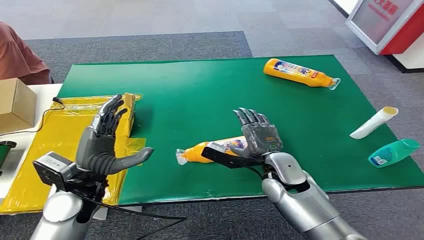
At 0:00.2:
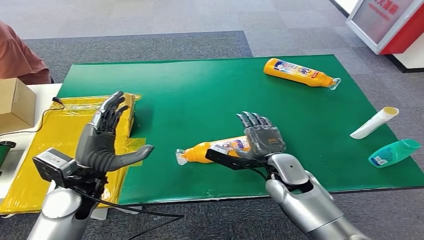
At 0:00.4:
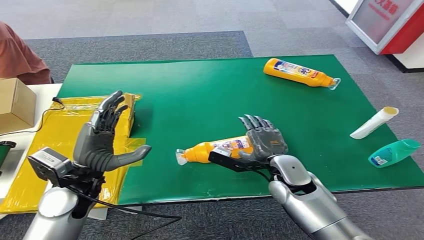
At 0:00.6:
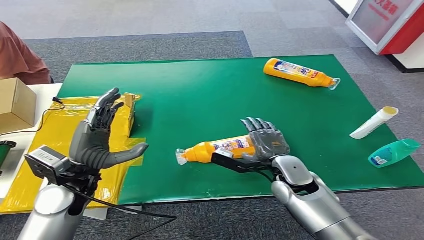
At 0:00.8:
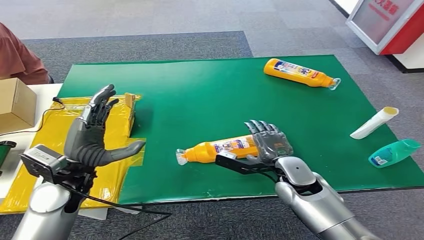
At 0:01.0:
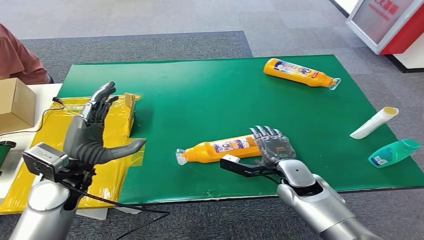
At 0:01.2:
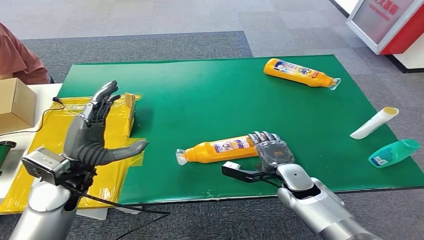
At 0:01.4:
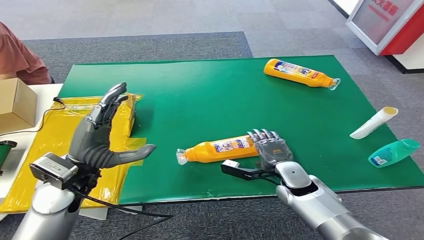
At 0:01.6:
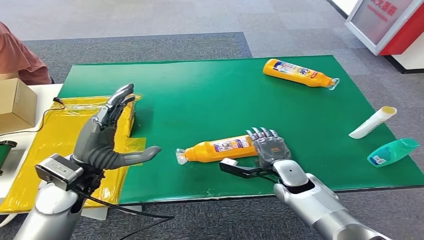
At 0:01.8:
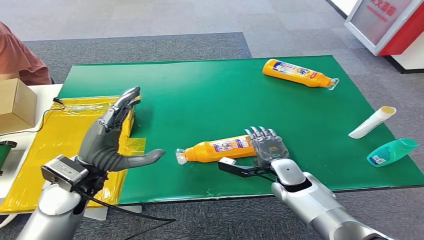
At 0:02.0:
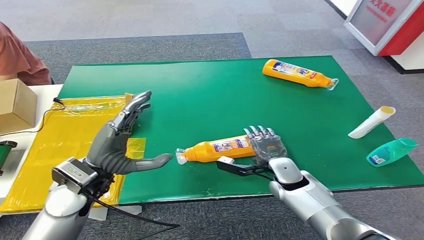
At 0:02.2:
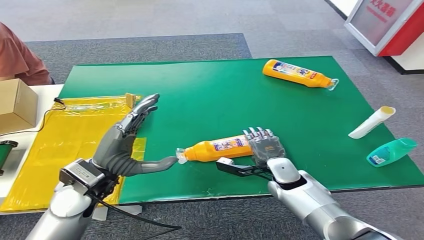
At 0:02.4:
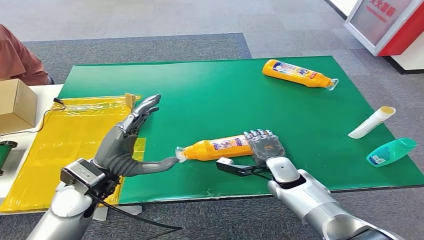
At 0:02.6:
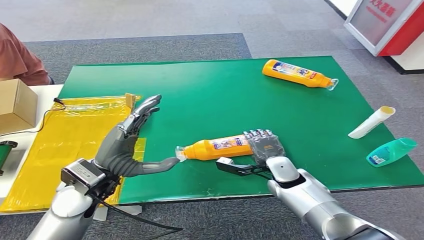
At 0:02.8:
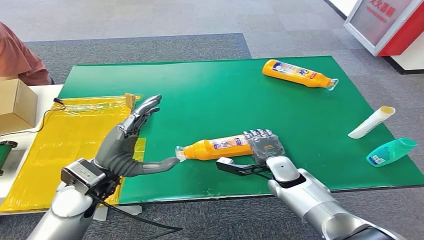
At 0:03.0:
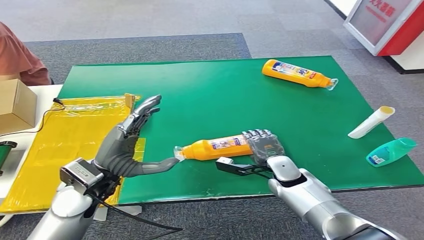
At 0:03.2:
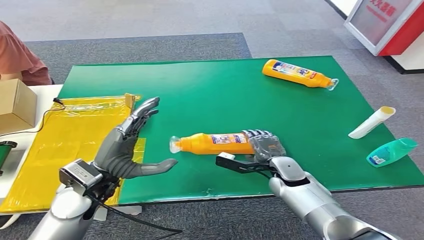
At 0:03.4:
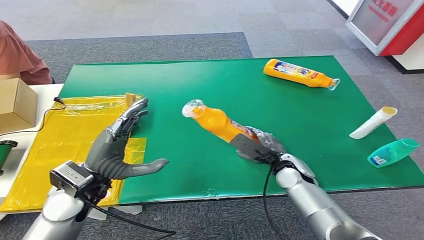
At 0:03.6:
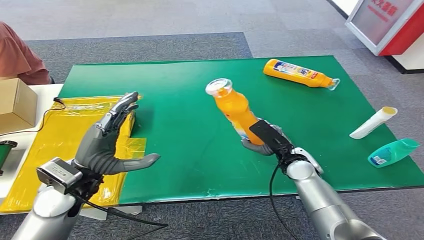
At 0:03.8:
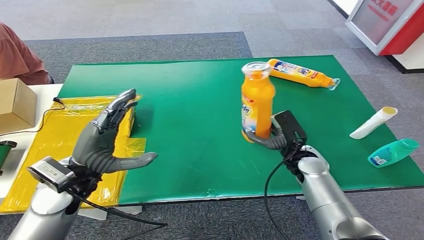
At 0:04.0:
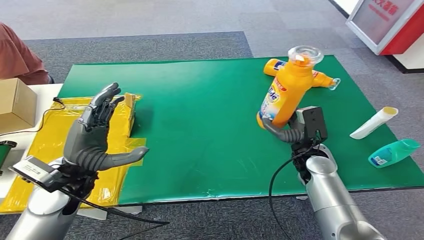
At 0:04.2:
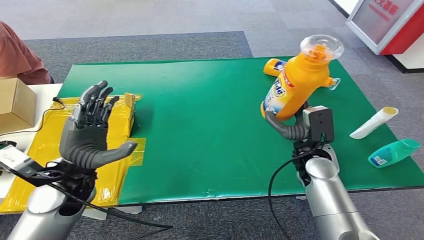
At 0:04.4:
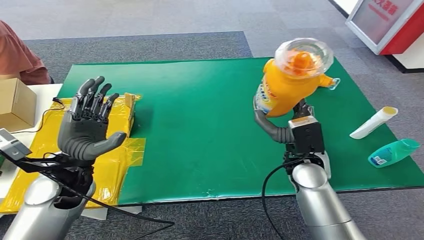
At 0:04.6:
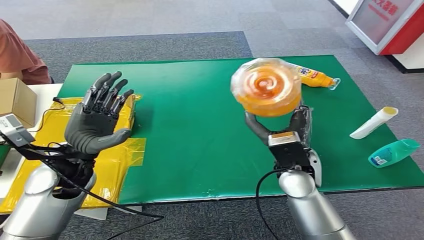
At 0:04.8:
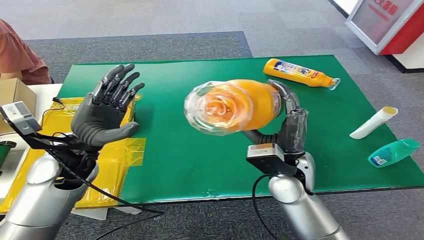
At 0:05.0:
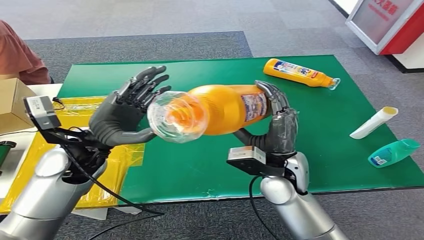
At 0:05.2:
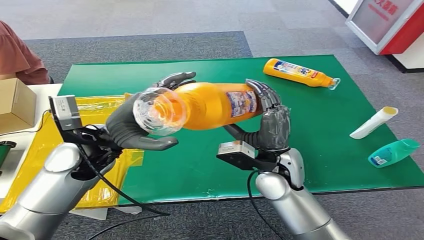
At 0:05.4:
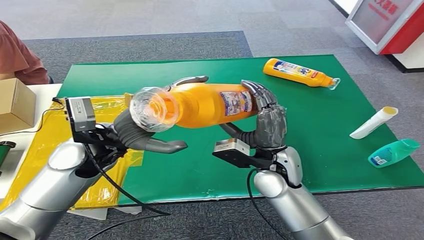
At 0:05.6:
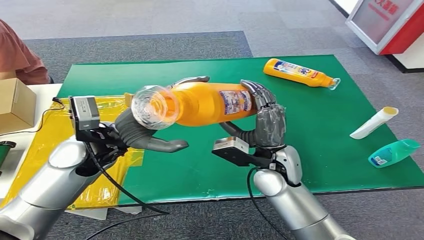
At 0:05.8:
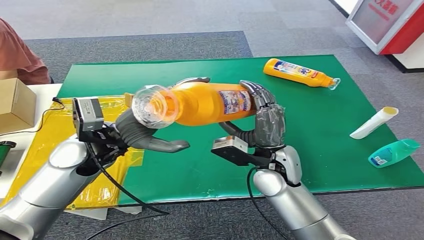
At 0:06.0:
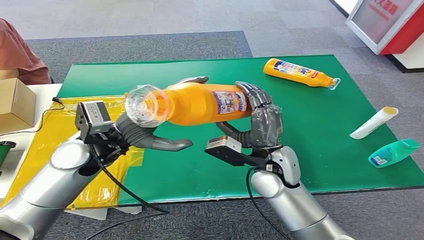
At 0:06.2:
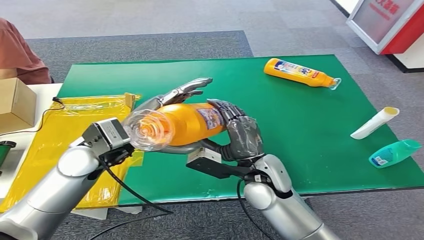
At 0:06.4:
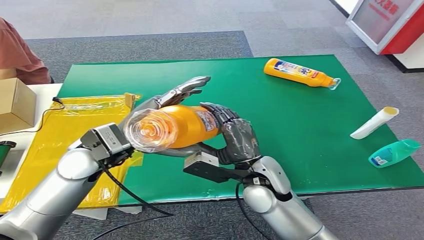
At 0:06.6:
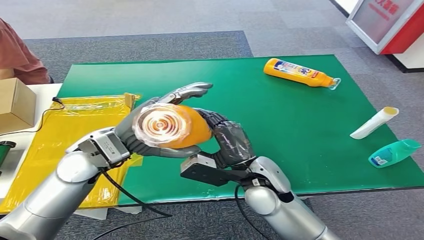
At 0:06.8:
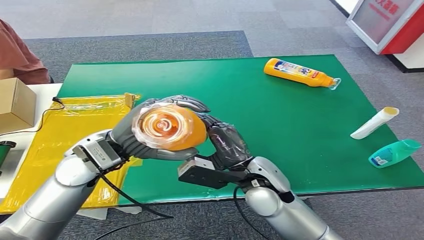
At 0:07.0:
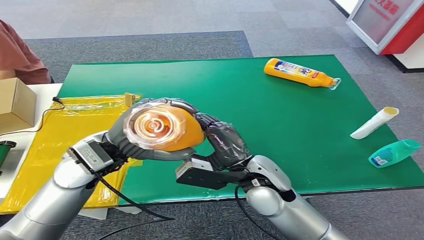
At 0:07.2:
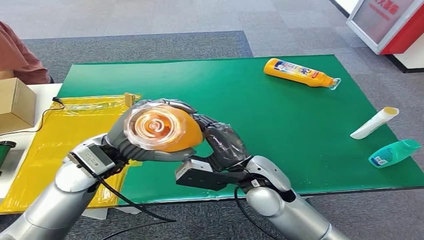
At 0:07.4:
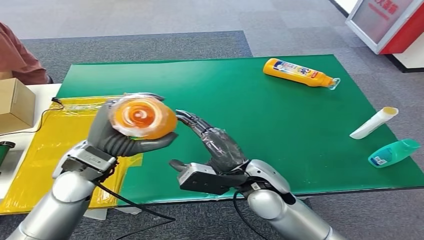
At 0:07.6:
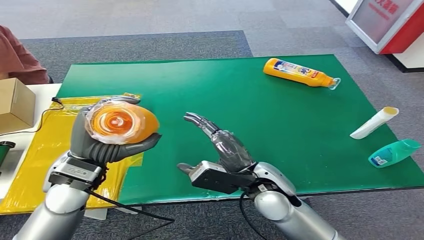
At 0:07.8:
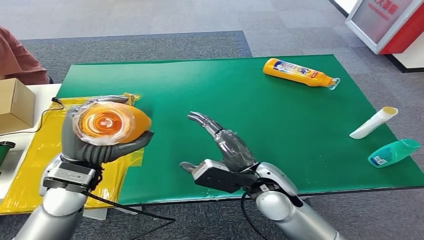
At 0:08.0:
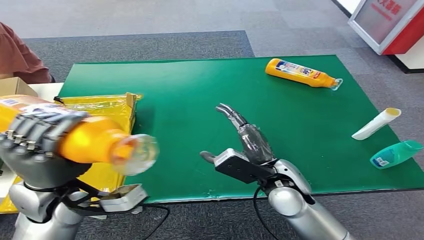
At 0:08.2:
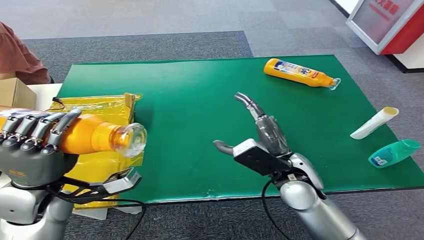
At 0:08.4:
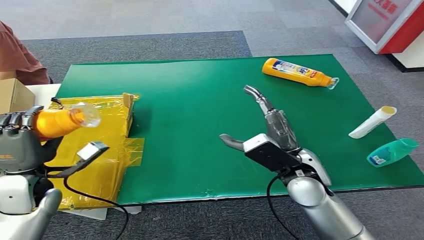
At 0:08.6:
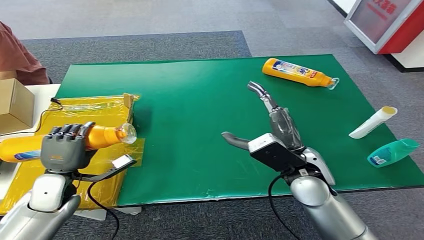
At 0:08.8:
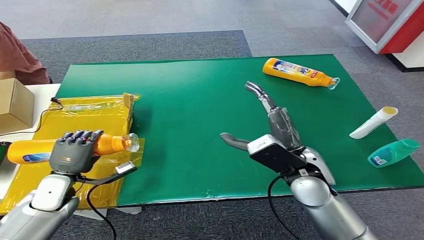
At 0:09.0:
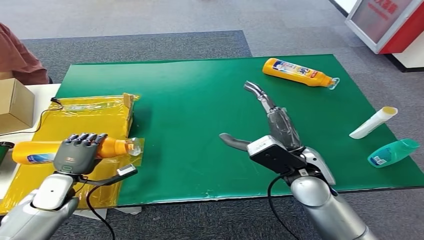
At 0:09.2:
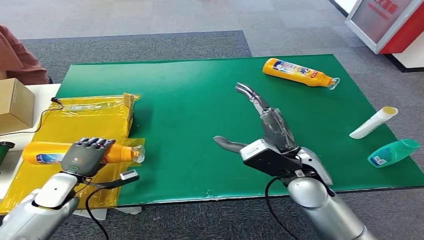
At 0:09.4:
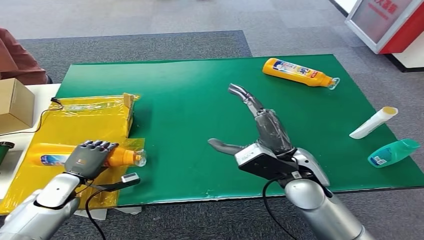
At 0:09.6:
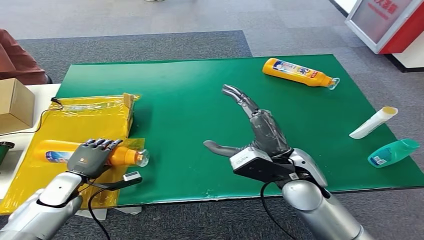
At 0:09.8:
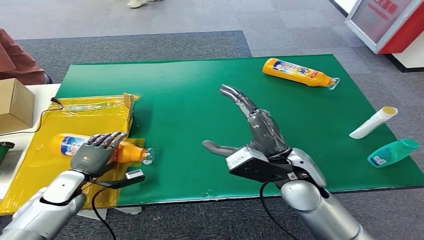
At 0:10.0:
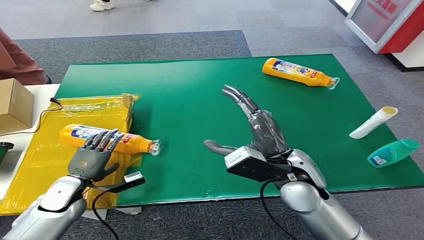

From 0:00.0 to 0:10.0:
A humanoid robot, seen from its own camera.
Step, from 0:00.0 to 0:03.2: Pick up the bottle from the table.
Step, from 0:03.6 to 0:10.0: Turn the bottle to the front side.
From 0:08.6 to 0:10.0: The left hand travels downward by roughly 5 cm.

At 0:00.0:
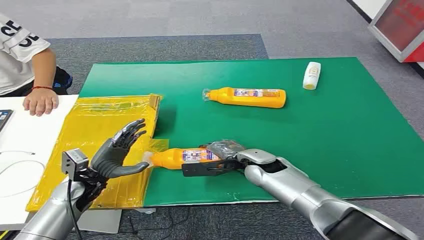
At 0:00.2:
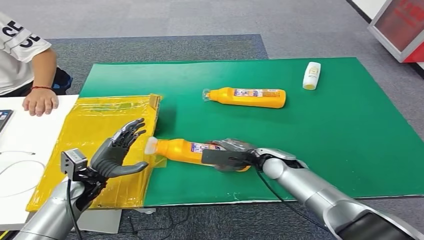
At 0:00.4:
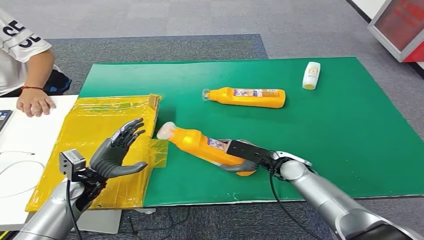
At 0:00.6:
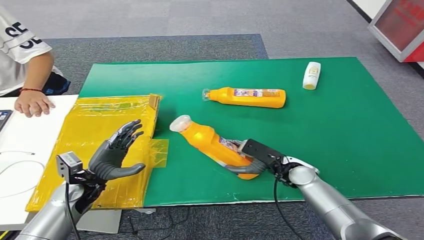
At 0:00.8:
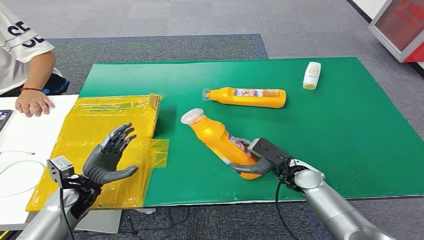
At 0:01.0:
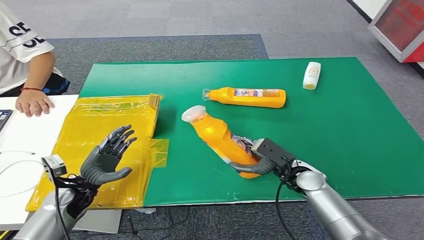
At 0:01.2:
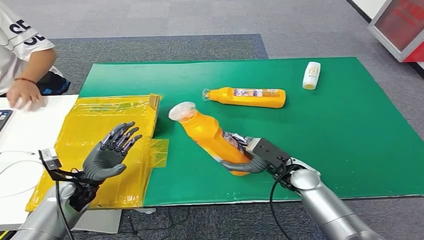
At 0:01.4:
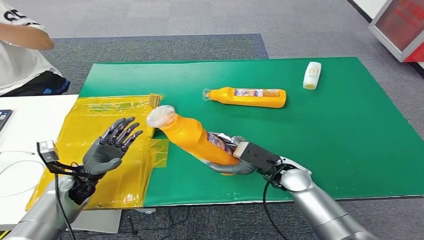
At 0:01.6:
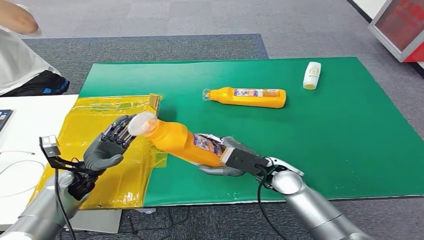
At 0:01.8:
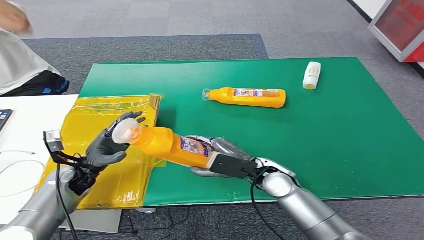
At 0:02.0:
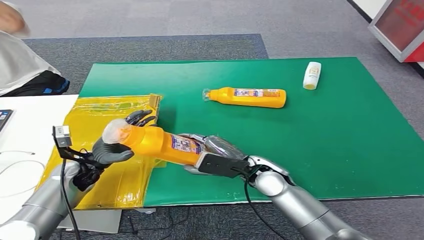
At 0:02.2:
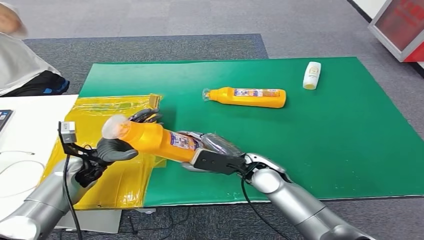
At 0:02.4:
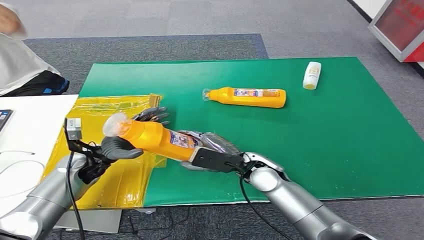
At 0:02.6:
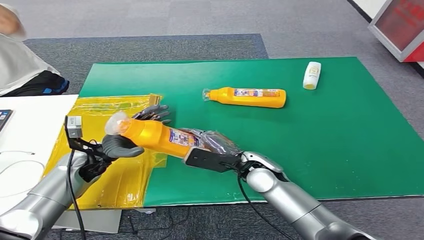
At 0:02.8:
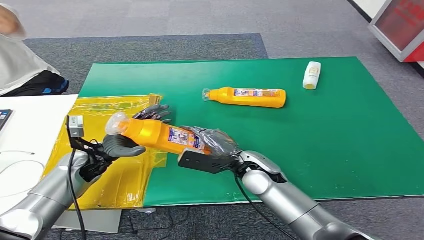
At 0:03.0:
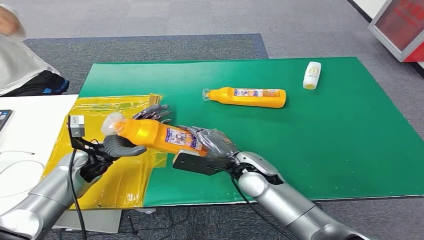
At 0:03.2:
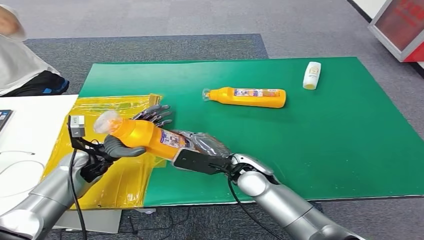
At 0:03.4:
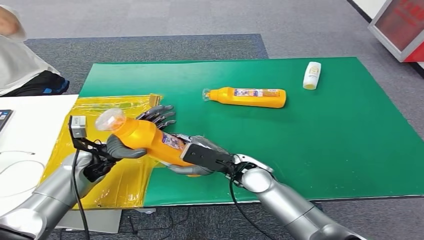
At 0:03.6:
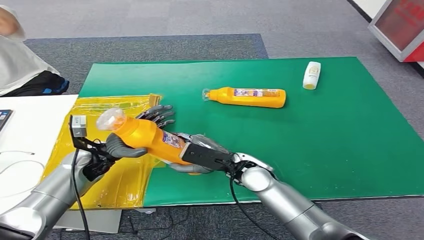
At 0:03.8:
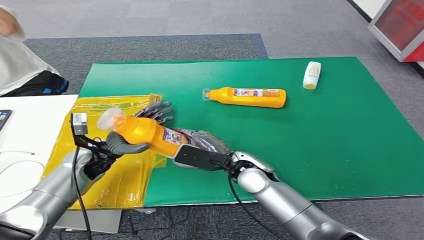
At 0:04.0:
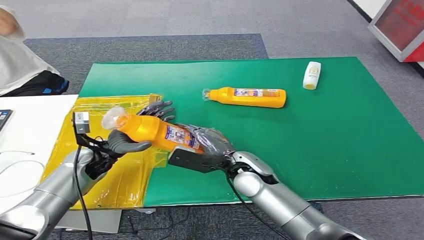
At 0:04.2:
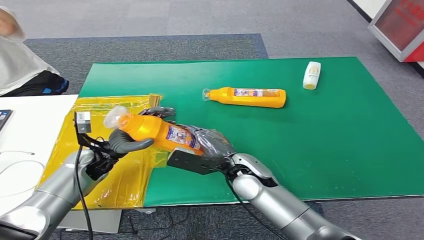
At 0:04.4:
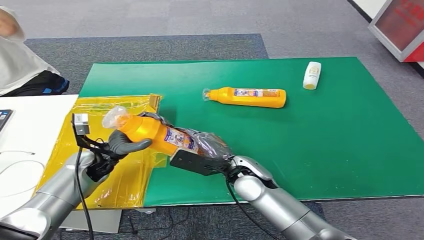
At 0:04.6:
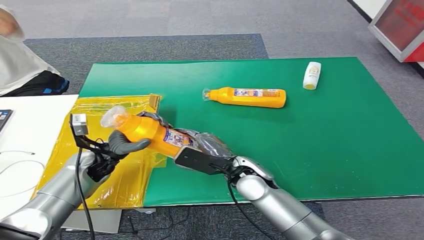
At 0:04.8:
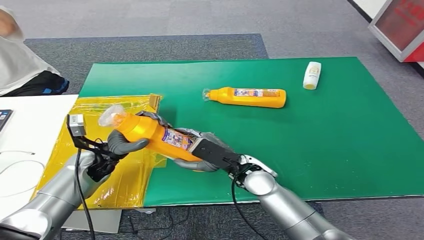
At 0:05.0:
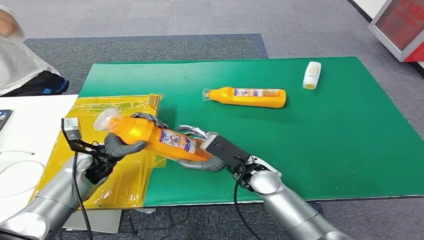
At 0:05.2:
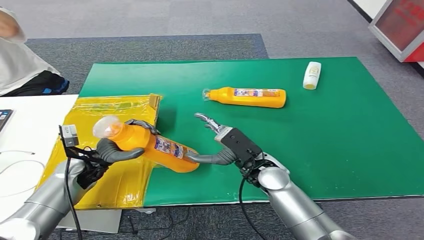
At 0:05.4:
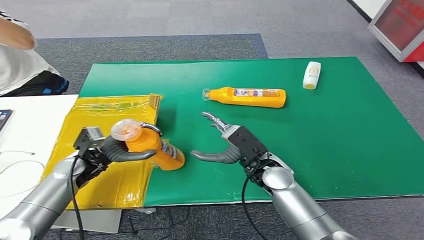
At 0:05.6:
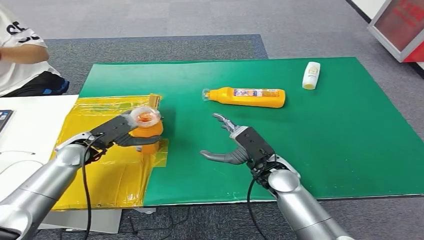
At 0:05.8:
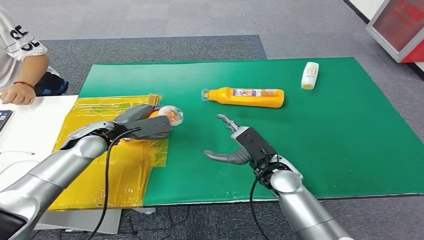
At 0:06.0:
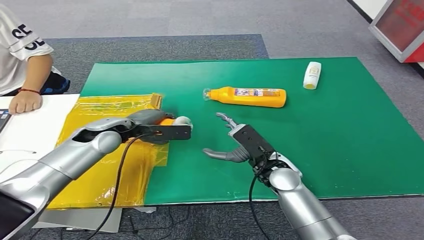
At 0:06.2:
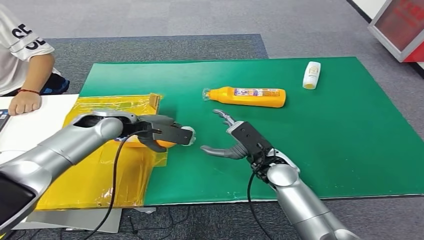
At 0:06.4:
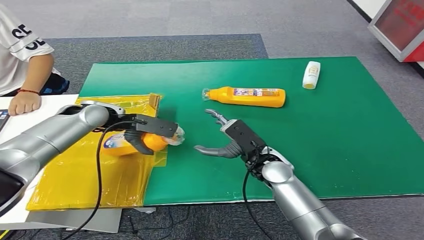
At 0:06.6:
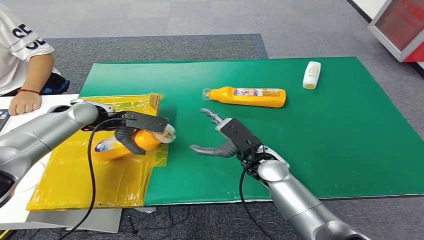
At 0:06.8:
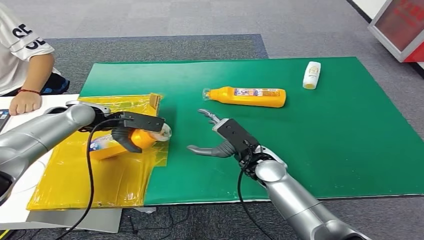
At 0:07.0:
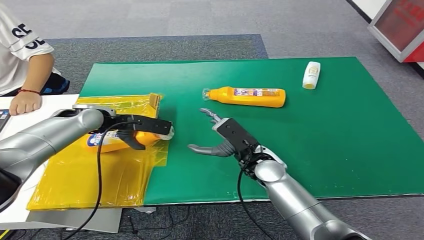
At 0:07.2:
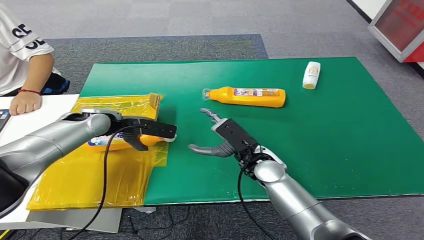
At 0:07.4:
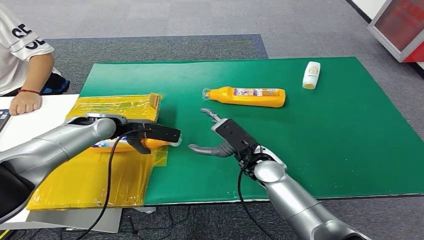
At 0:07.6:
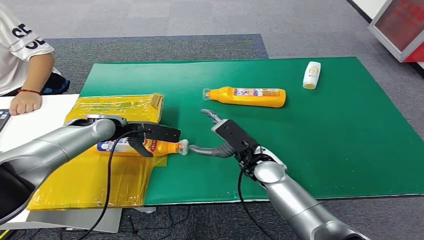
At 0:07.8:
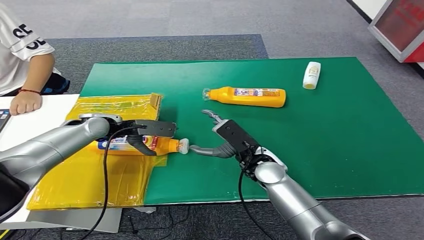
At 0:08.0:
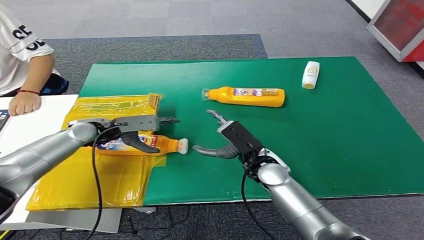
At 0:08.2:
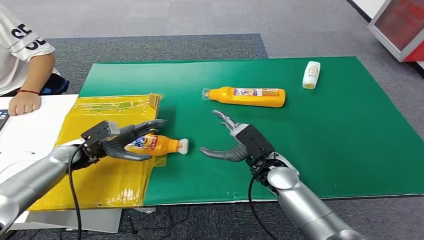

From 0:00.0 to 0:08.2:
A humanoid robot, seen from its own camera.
Step, from 0:00.0 to 0:01.8: Pick up the bottle from the table.
Step, from 0:02.0 to 0:08.0: Turn the bottle to the front side.
From 0:01.6 to 0:03.2: The left hand shifts by roughly 10 cm, while the right hand heads to the left, covering some 5 cm.
From 0:06.6 to 0:08.2: The left hand travels downward and backward by approximately 15 cm.
